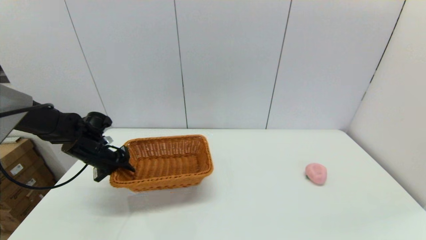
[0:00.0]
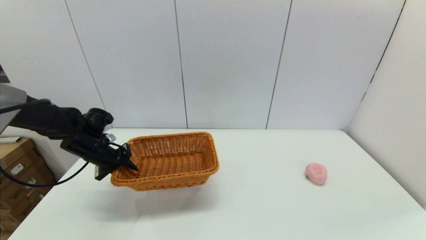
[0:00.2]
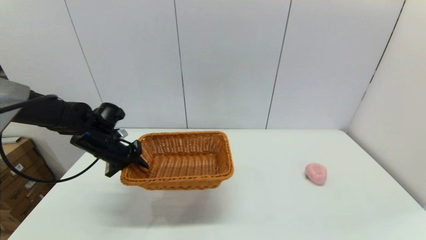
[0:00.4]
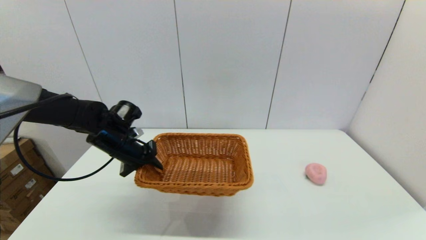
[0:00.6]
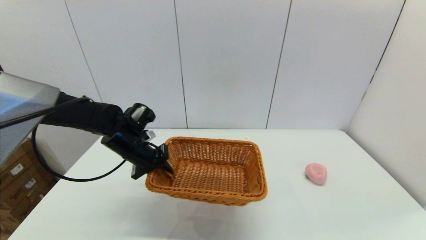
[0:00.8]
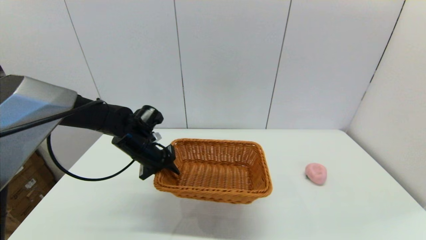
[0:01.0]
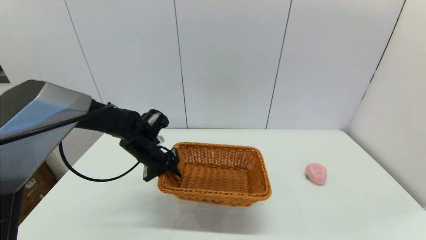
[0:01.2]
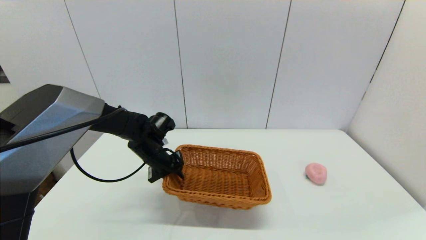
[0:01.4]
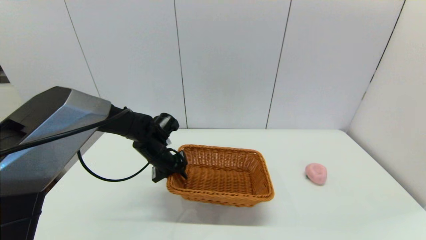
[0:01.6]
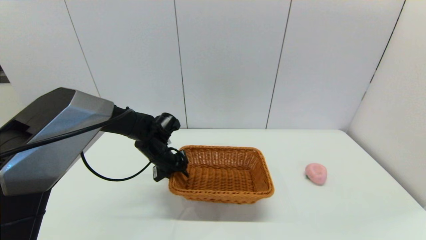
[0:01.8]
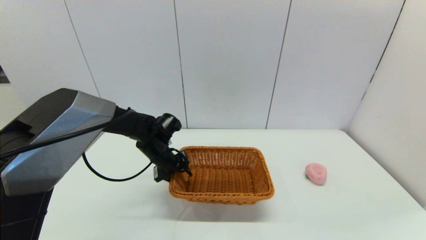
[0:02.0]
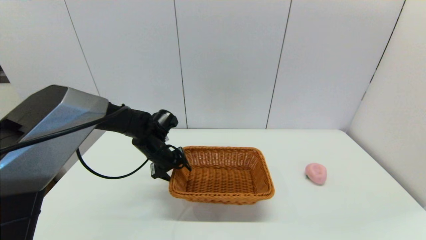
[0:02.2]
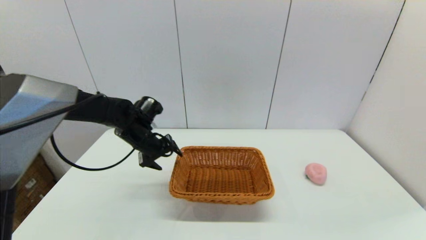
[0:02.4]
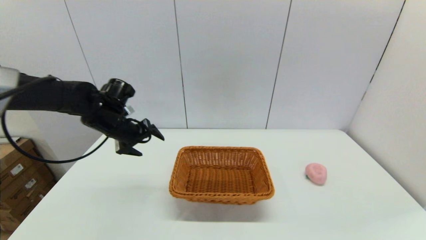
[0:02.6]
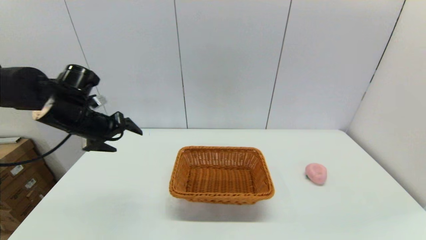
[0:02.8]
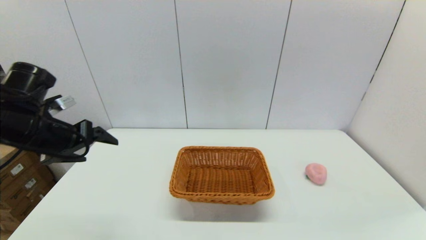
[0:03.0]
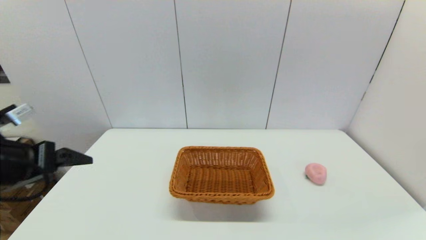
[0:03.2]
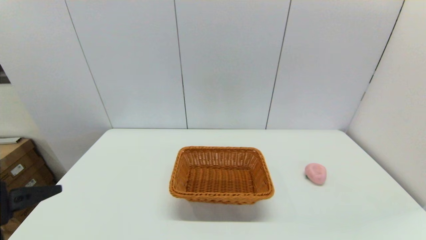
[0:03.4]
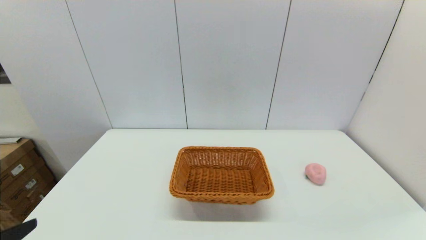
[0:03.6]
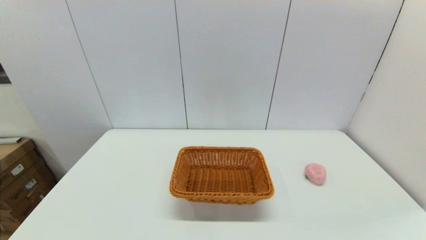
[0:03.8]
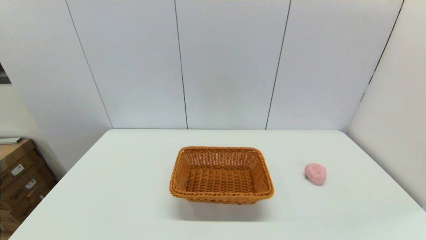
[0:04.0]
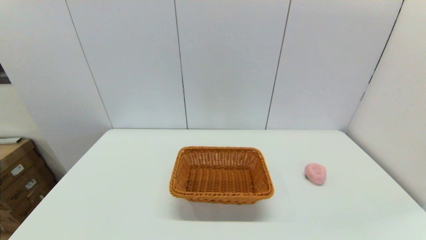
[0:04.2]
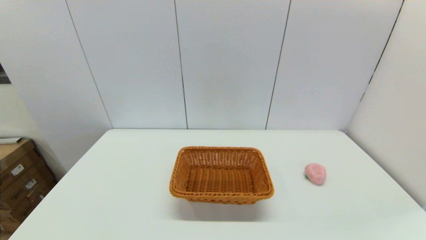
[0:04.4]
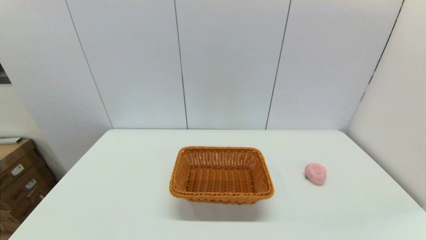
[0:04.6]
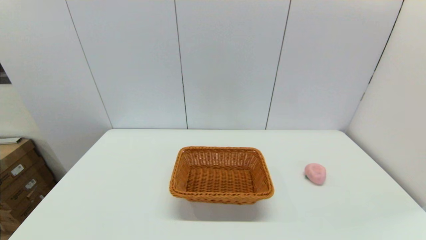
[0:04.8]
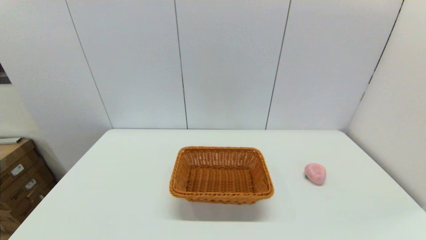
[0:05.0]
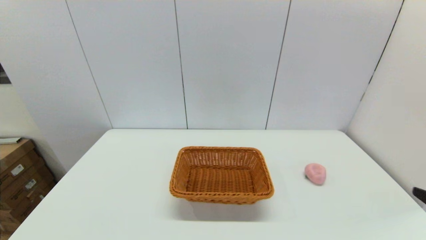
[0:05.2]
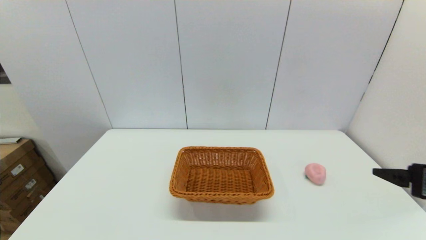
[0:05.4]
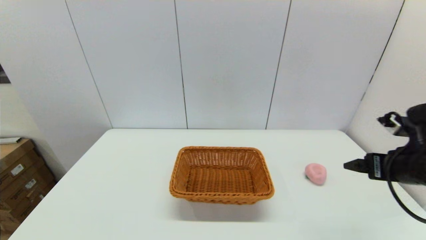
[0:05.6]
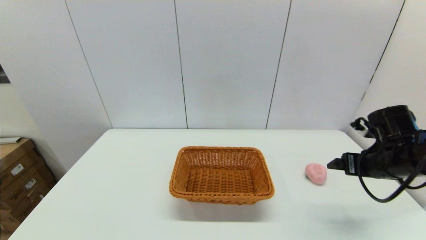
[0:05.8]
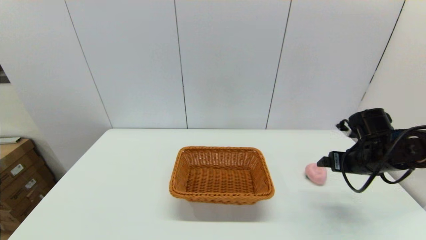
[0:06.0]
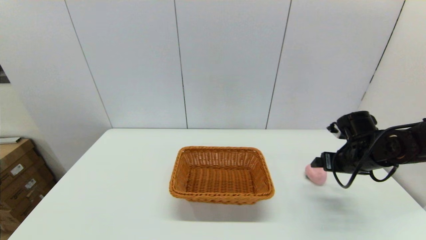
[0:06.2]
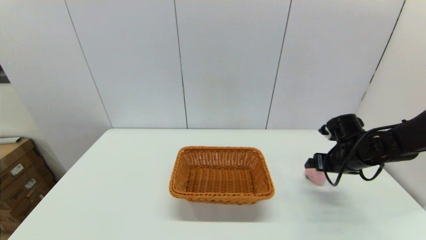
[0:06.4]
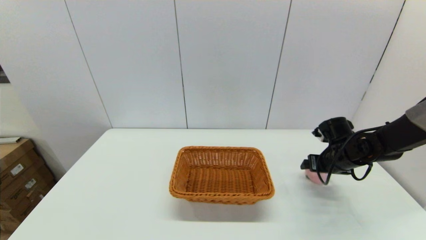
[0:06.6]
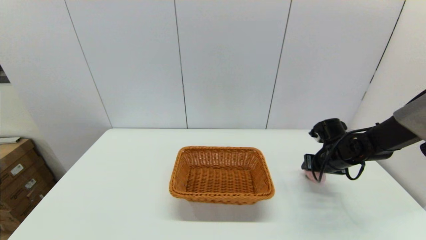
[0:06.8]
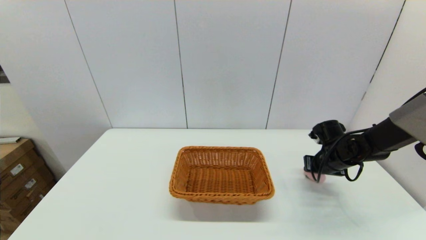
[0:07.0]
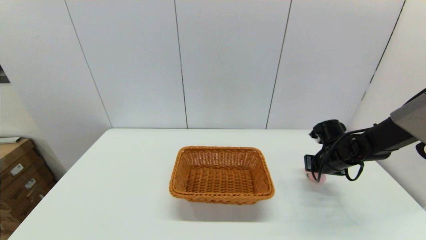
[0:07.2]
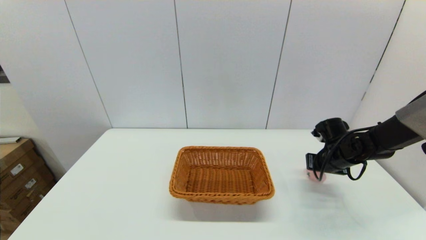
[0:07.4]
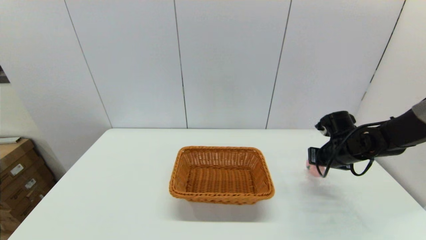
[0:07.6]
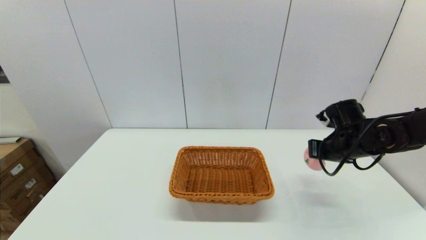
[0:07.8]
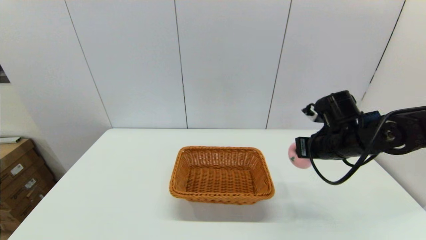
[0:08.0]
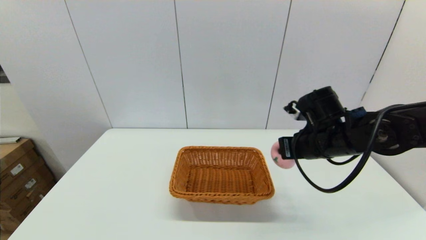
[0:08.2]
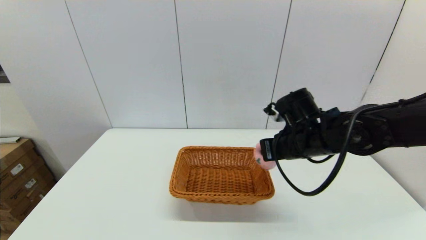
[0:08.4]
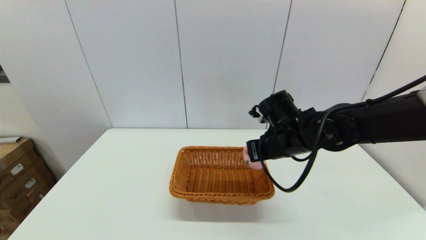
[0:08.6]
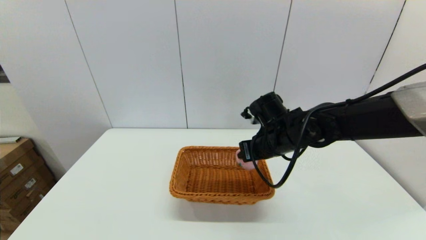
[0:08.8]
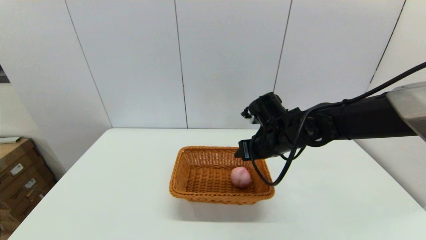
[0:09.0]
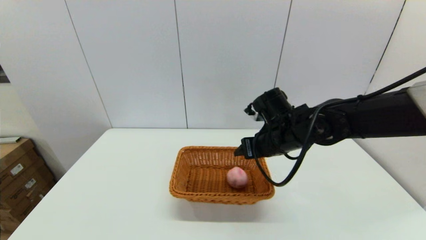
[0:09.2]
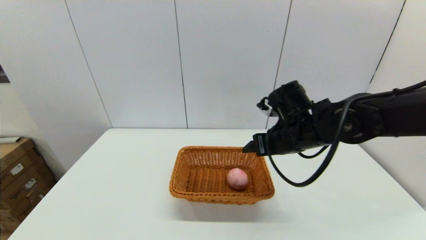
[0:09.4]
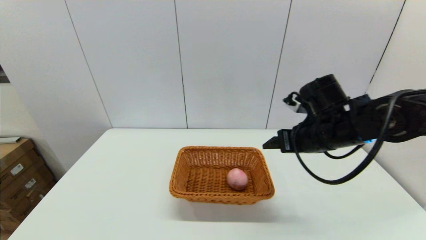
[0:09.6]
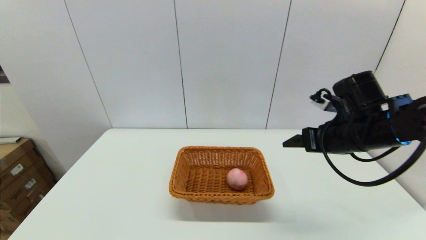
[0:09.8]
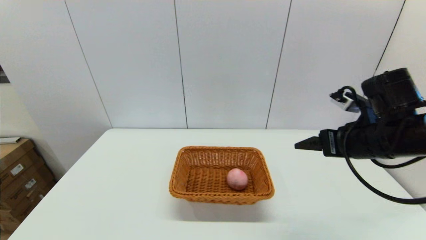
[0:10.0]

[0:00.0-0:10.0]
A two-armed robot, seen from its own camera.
Step, 0:00.0 to 0:02.0: Place the light basket on the middle of the table with the left gripper.
Step, 0:02.4 to 0:07.0: Grasp the peach with the right gripper.
Step, 0:07.4 to 0:09.0: Place the peach into the light basket with the right gripper.
0:00.0 to 0:01.4: The left gripper shifts some 15 cm to the right.
0:01.4 to 0:02.8: The left gripper moves upward, to the left and backward, about 20 cm, and opens its fingers.
0:02.8 to 0:04.2: The left gripper is displaced backward by about 35 cm.
0:04.2 to 0:05.8: The right gripper shifts roughly 30 cm forward.
0:05.8 to 0:07.2: The right gripper is displaced forward and downward by approximately 15 cm, and closes.
0:07.2 to 0:08.6: The right gripper moves to the left and upward, some 20 cm.
0:08.6 to 0:10.0: The right gripper travels to the right, backward and upward by approximately 15 cm, and opens.

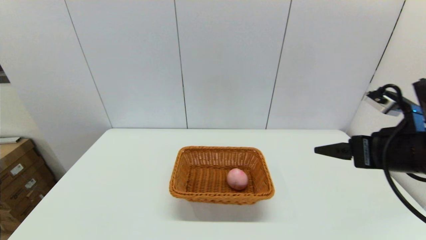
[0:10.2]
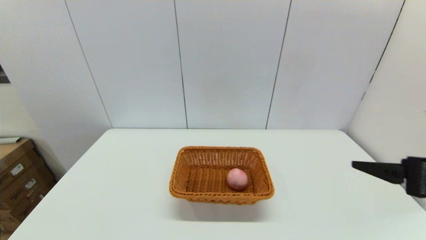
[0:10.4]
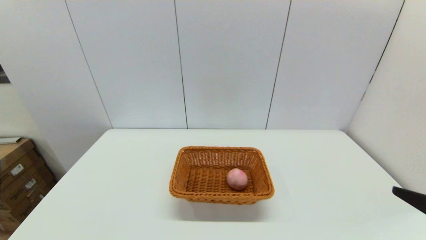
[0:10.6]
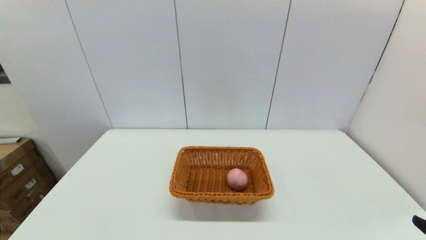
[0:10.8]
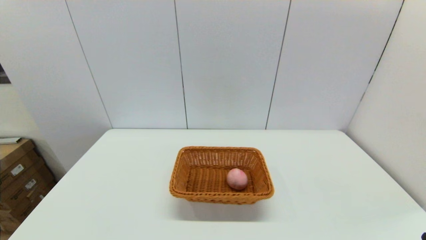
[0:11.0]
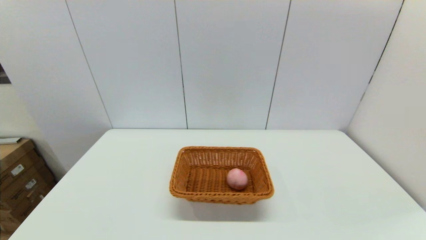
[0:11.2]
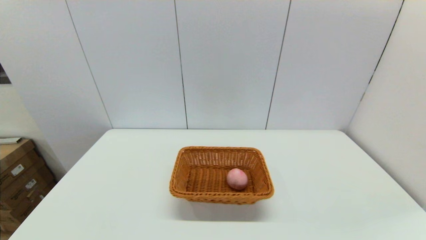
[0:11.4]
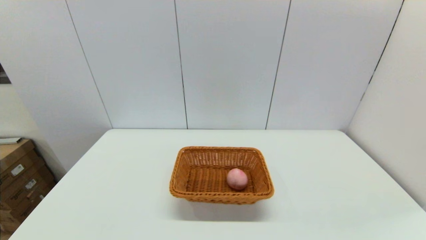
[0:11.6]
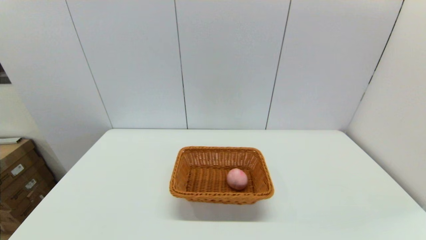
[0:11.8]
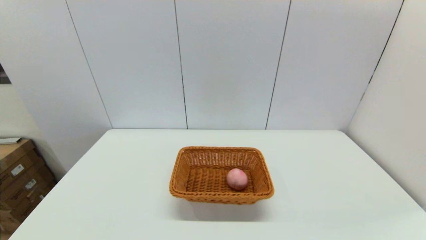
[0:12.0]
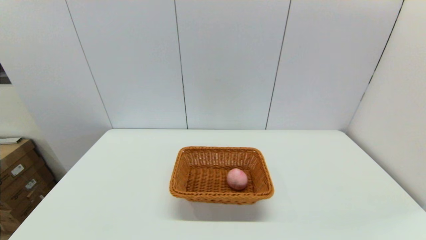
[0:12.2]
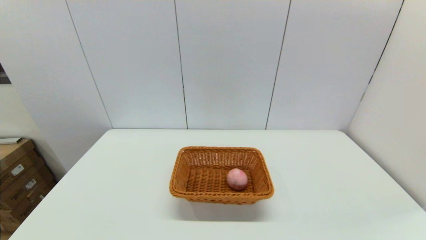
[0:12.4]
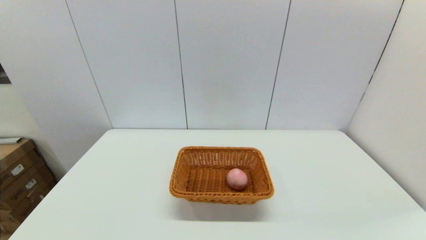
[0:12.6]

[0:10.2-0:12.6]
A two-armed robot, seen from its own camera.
0:10.2 to 0:11.4: The right gripper goes approximately 25 cm backward and downward.

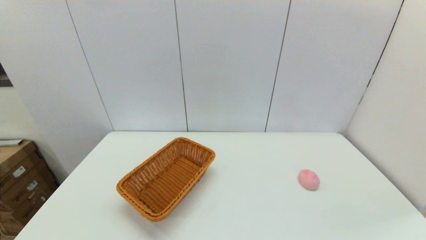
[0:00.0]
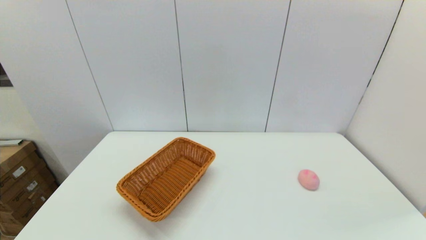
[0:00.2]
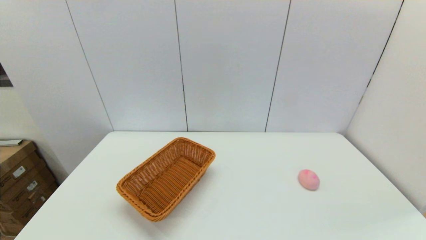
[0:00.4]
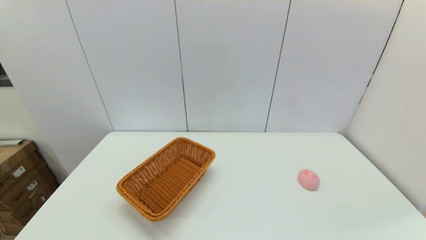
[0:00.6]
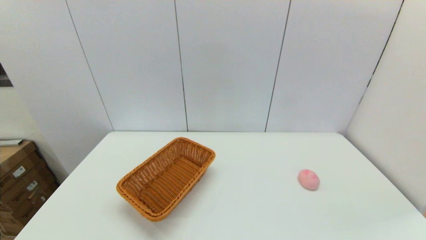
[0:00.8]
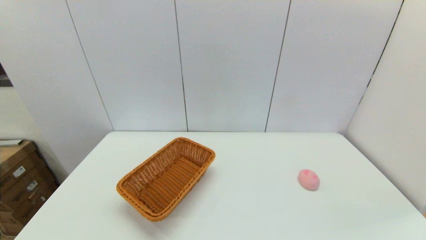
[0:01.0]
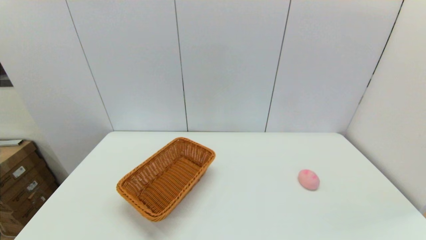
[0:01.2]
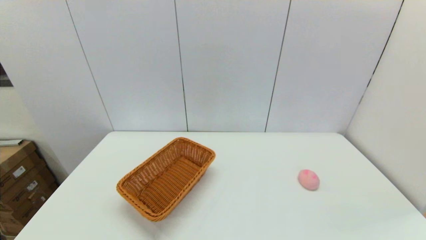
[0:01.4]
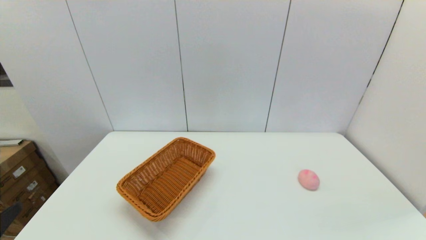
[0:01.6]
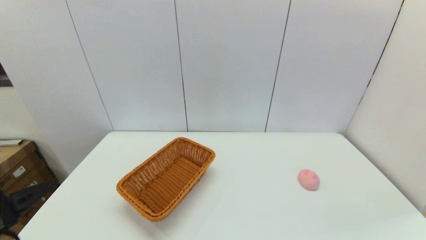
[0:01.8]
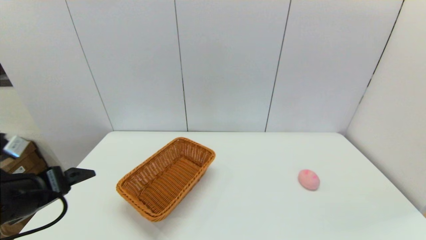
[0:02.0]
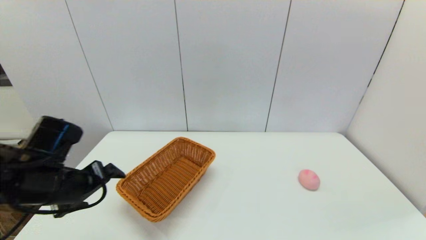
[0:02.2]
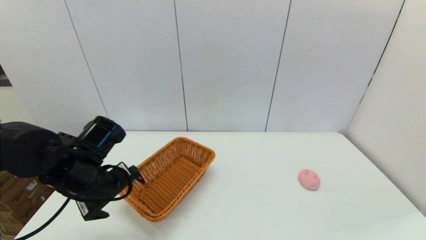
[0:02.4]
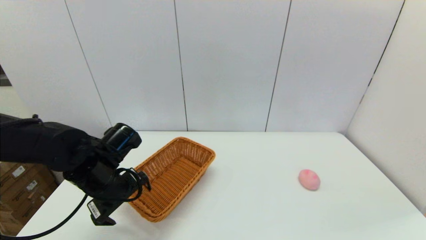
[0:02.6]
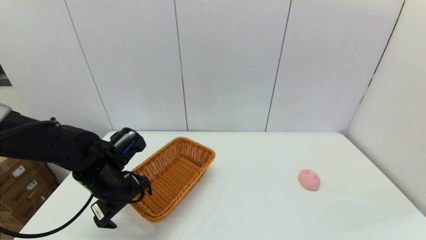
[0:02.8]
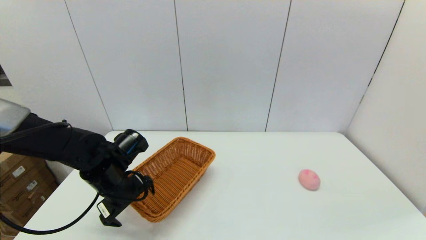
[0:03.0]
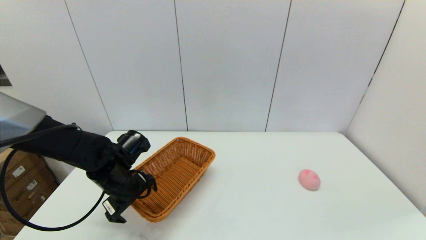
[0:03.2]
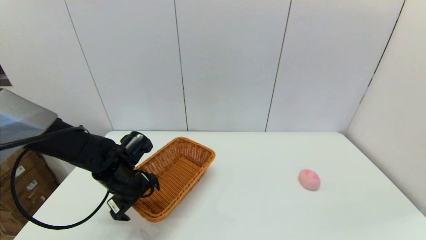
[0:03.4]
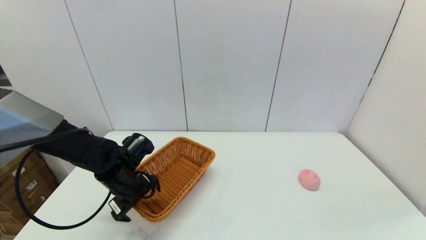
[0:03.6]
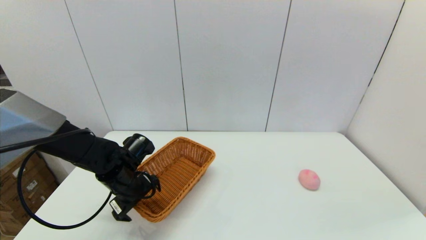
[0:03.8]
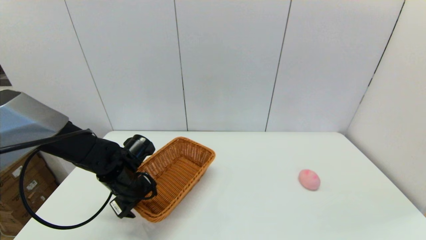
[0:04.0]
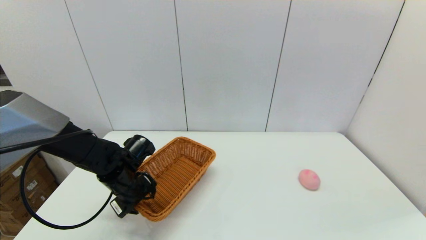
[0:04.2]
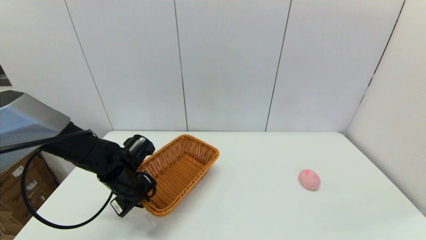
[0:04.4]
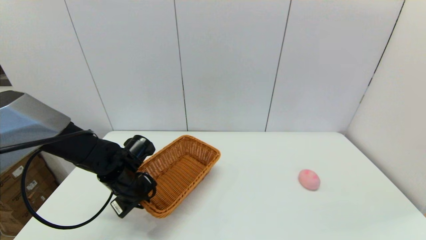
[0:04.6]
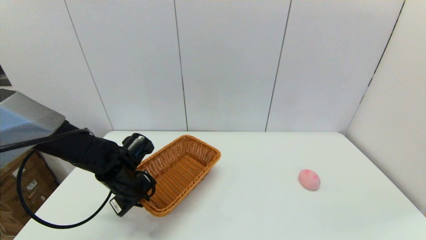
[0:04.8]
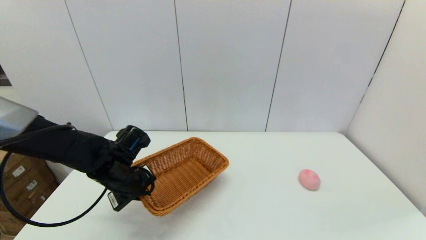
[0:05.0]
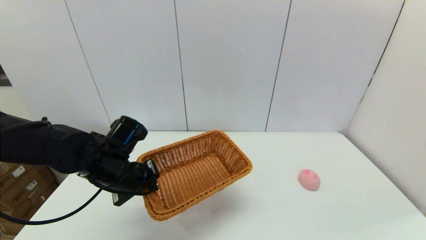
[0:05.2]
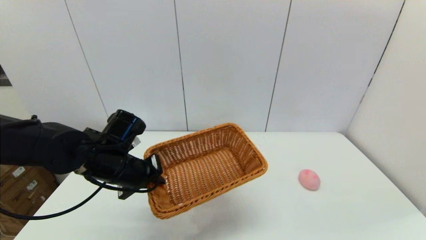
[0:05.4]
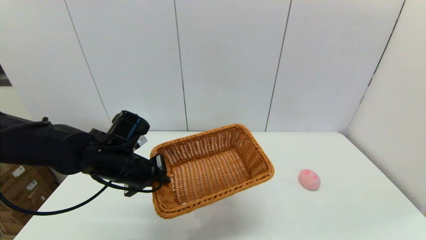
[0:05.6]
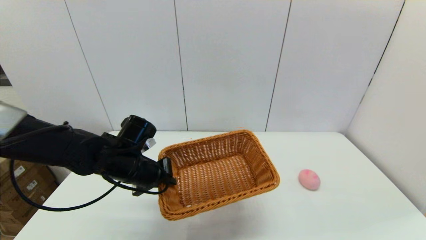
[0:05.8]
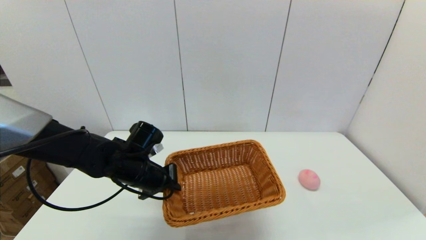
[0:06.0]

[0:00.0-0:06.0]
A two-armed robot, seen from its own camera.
Step, 0:00.0 to 0:04.4: Grasp the light basket with the left gripper.
0:01.6 to 0:03.0: The left gripper heads forward, covering some 25 cm.
0:03.0 to 0:04.4: The left gripper closes.
